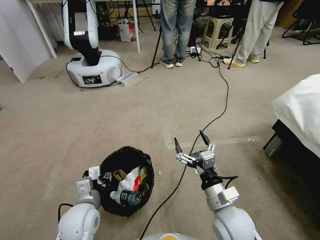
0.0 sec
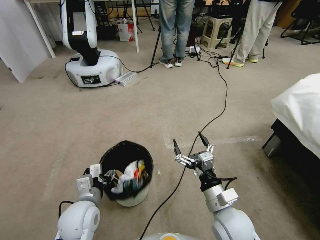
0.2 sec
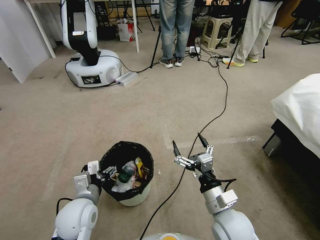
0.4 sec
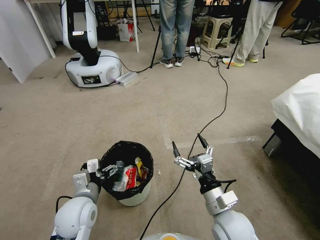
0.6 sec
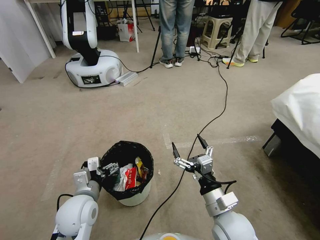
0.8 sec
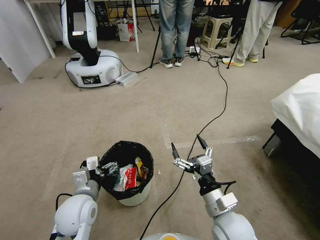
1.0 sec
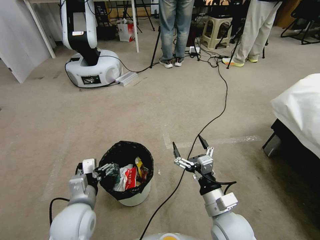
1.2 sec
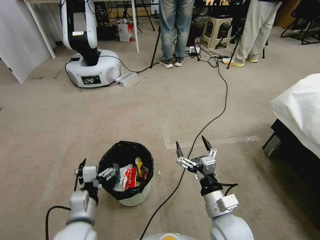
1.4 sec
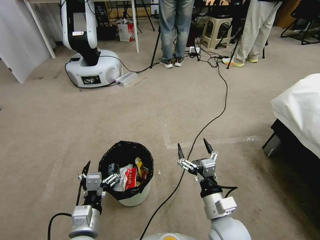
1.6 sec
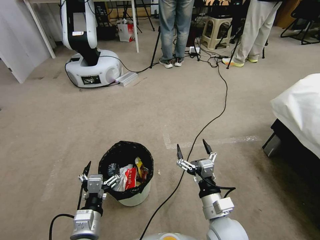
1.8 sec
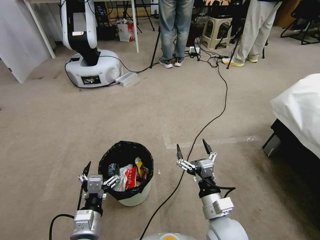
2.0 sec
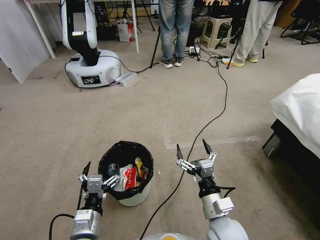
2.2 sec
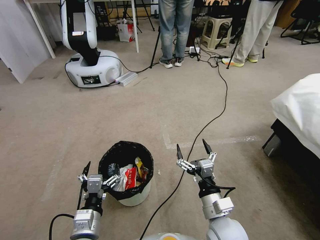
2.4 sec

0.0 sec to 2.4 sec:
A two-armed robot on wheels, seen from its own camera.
Task of the whole recording: Pick up the trash bin, then pick up the garbage from the floor and place it into the trash bin.
0.0 sec to 1.2 sec: The left gripper opens.
1.2 sec to 2.4 sec: The left gripper heads backward, covering some 5 cm.
